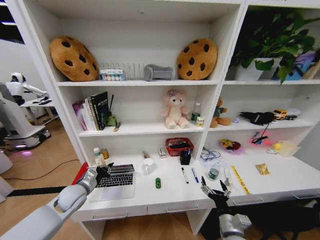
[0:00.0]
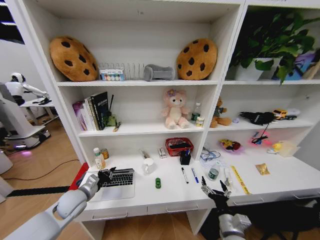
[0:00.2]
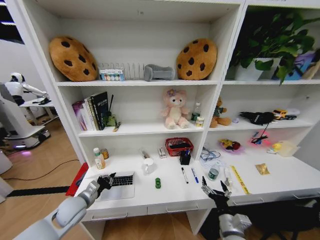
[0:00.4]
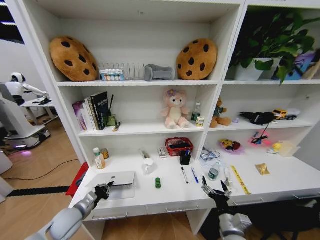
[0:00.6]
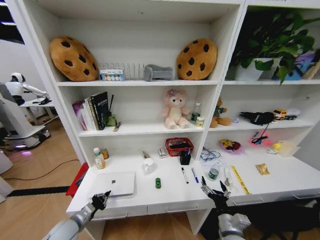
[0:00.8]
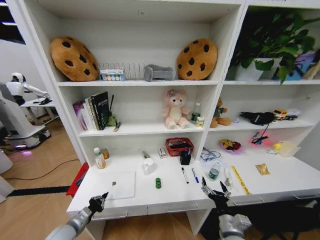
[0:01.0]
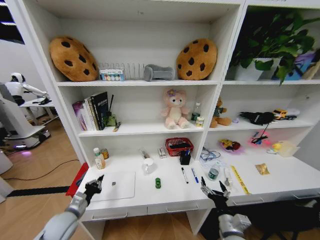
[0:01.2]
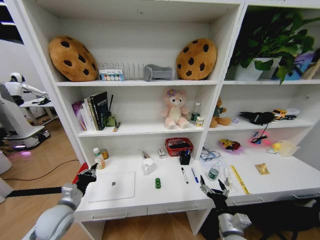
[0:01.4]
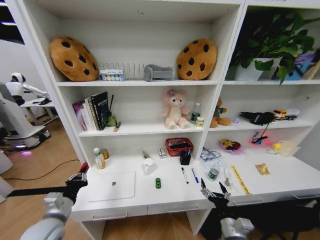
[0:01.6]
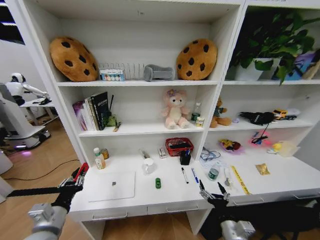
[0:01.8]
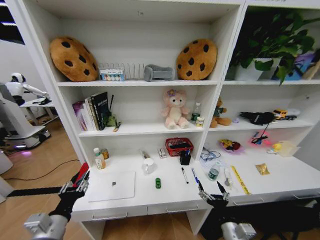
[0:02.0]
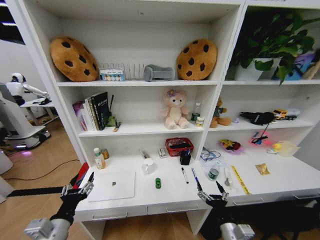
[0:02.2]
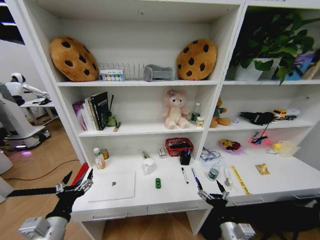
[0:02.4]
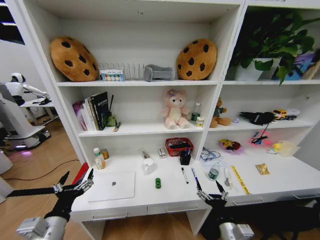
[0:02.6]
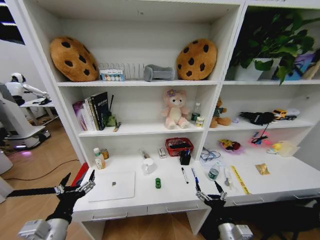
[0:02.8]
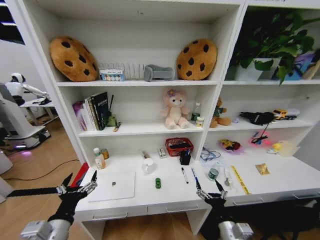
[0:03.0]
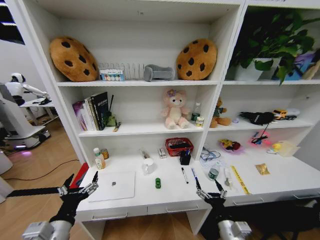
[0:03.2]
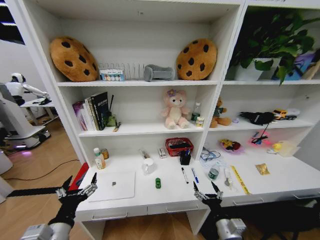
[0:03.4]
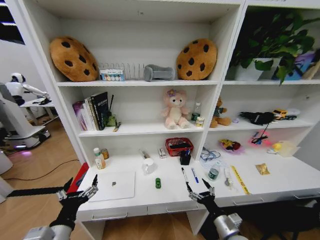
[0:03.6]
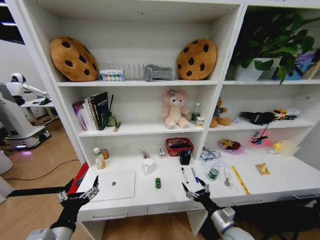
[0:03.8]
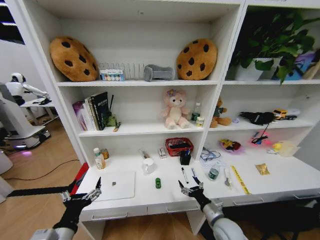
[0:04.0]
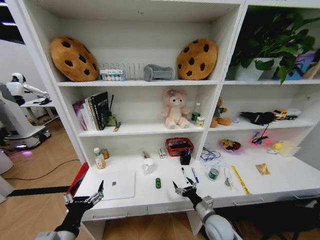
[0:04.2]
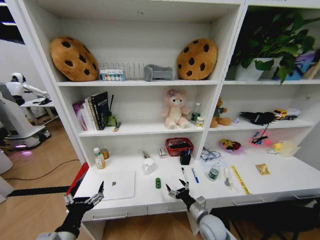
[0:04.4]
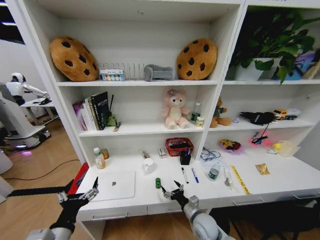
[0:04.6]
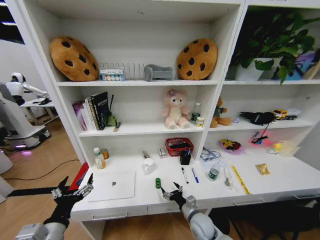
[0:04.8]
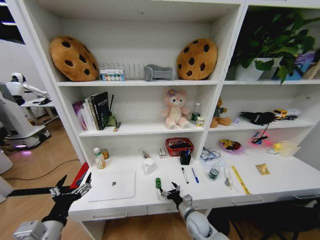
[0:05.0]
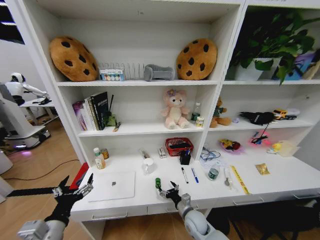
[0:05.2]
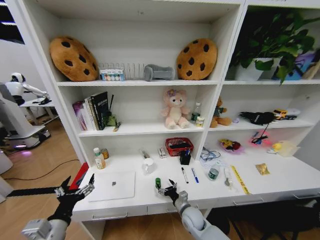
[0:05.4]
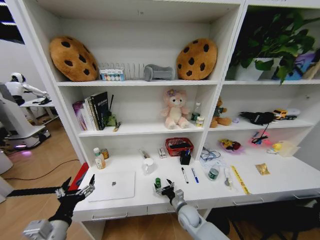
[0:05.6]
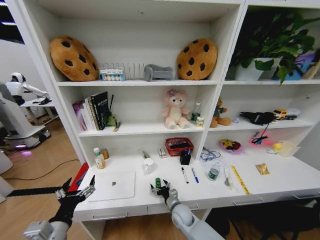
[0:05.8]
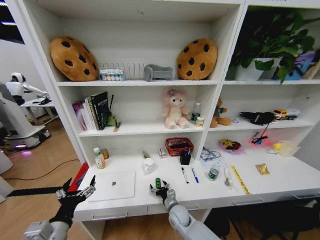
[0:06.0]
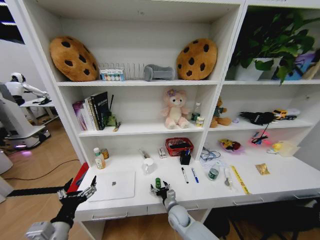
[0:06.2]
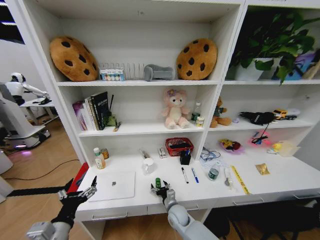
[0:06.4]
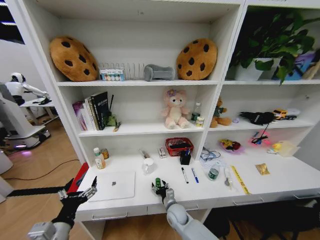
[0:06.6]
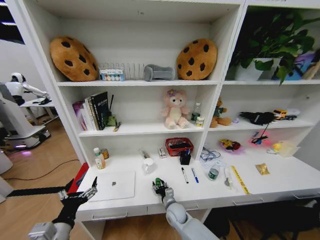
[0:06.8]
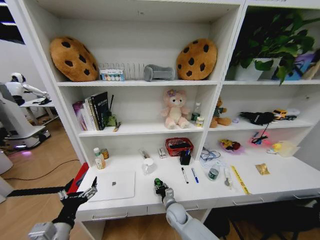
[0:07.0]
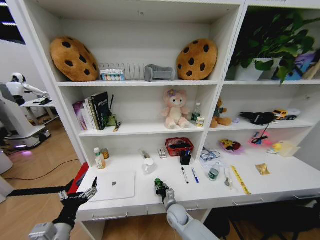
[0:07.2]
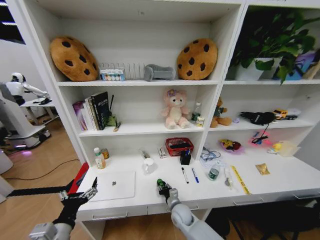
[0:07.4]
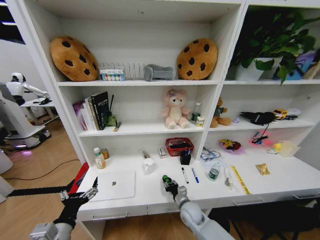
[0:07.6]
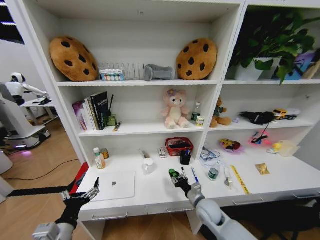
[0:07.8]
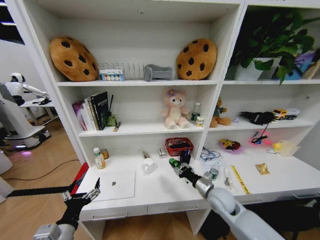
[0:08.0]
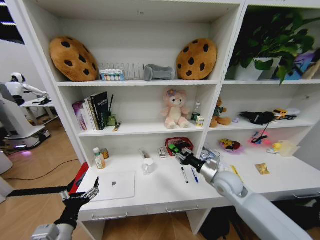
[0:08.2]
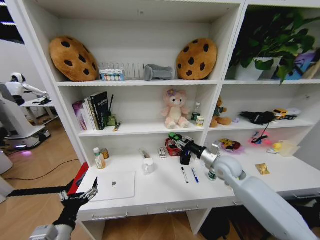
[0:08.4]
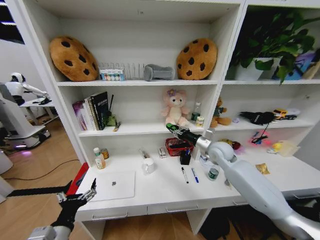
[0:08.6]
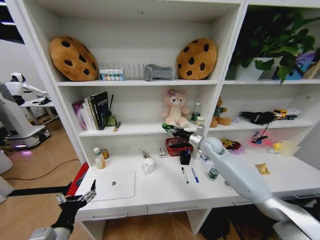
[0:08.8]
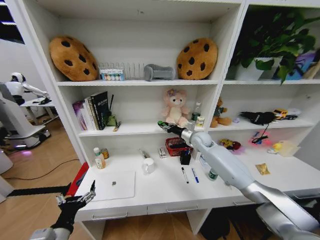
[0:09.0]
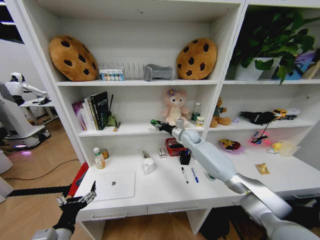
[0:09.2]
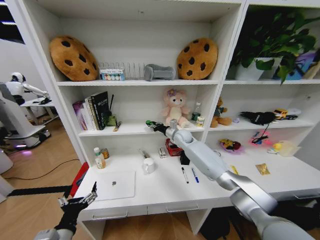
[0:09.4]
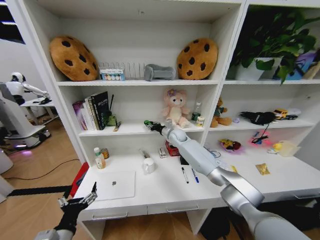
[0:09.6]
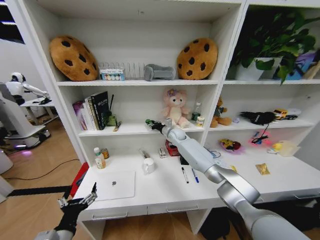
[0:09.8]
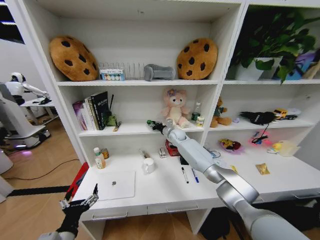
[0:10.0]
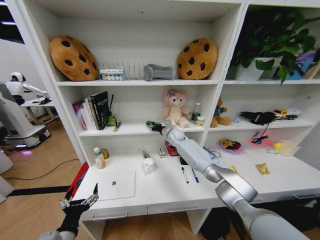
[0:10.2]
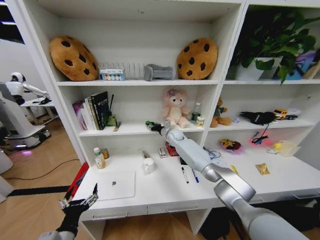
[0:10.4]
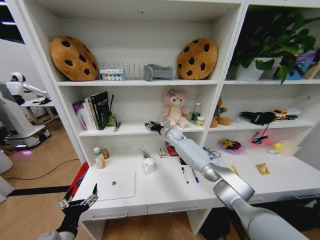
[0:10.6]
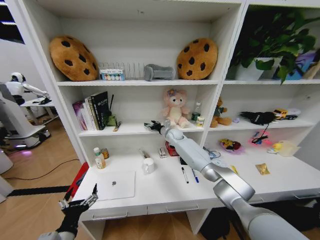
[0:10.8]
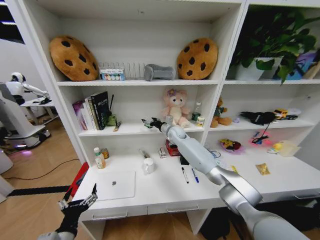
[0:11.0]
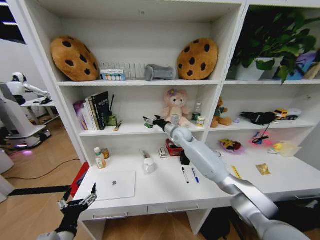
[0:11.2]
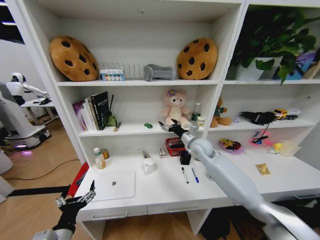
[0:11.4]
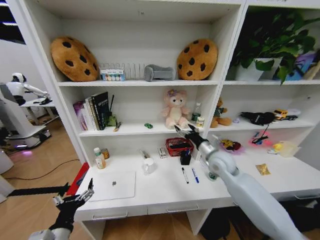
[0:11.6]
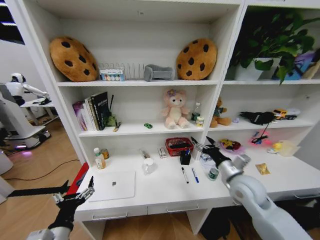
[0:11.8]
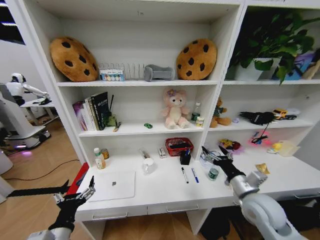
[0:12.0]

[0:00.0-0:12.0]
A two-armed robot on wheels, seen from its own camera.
Task of the whole recording: Organize the objects on the table.
0:00.0 to 0:01.6: The left gripper is displaced backward by roughly 15 cm.
0:01.6 to 0:03.0: The left gripper shifts approximately 10 cm backward and to the right, and opens.
0:03.0 to 0:04.4: The right gripper travels forward and downward by some 10 cm.
0:04.4 to 0:06.0: The right gripper shifts about 15 cm to the left, forward and downward.
0:06.0 to 0:07.6: The right gripper heads to the right, covering approximately 5 cm, and closes its fingers.
0:07.6 to 0:09.0: The right gripper is displaced forward and upward by about 35 cm.
0:09.0 to 0:10.4: The right gripper goes about 15 cm to the left and forward.
0:10.4 to 0:12.0: The right gripper is displaced backward and to the right by about 40 cm, and opens.

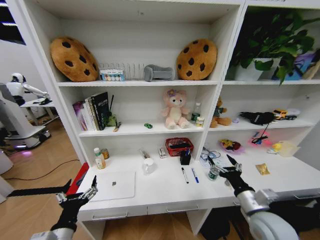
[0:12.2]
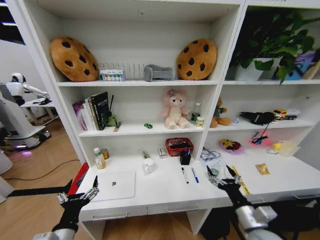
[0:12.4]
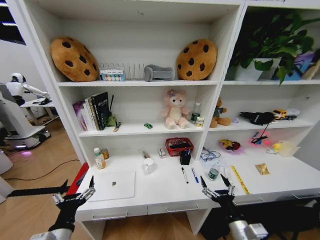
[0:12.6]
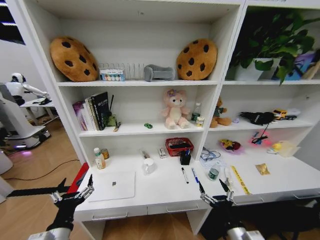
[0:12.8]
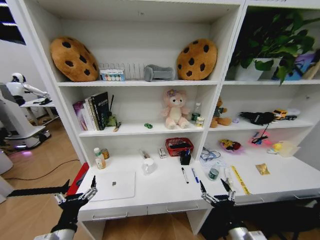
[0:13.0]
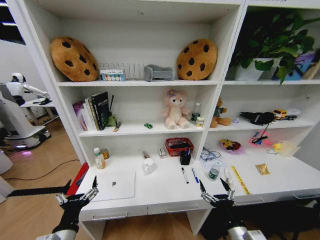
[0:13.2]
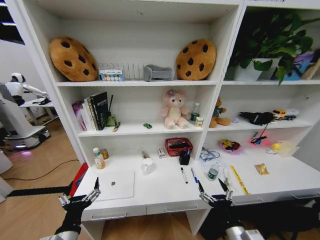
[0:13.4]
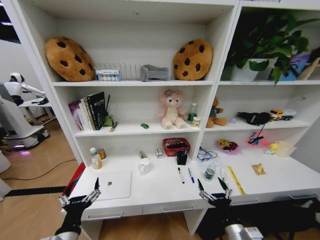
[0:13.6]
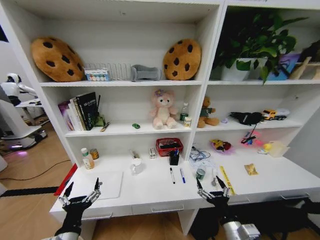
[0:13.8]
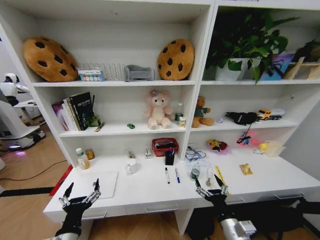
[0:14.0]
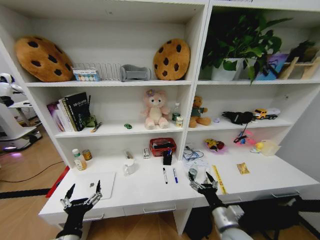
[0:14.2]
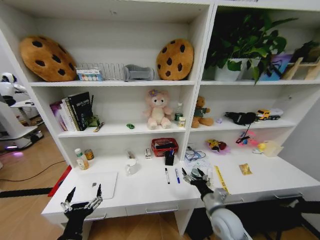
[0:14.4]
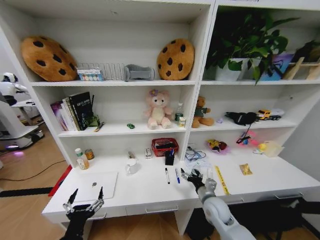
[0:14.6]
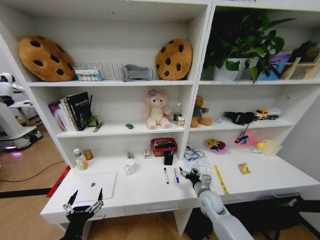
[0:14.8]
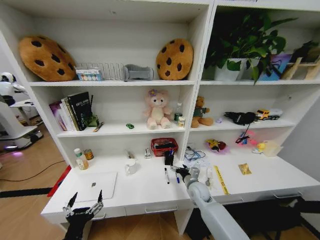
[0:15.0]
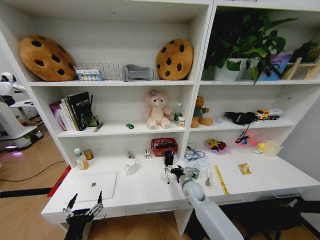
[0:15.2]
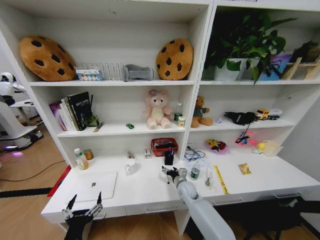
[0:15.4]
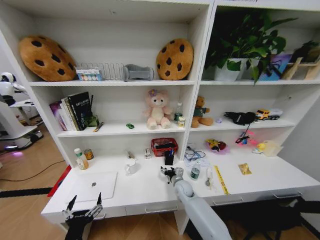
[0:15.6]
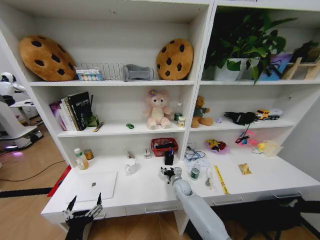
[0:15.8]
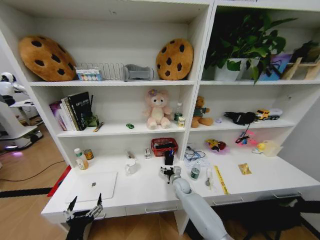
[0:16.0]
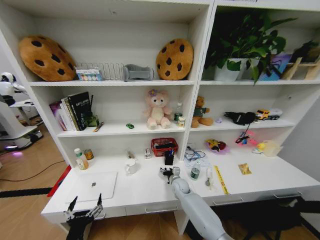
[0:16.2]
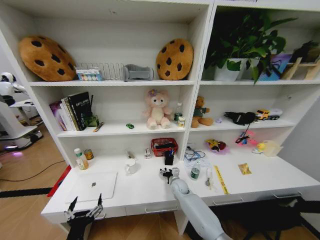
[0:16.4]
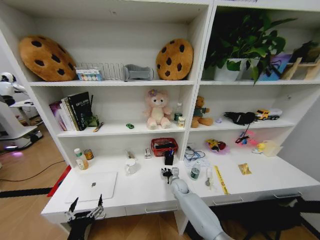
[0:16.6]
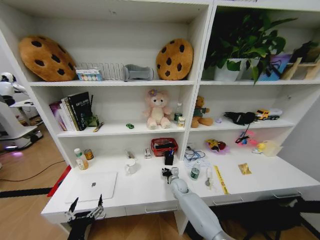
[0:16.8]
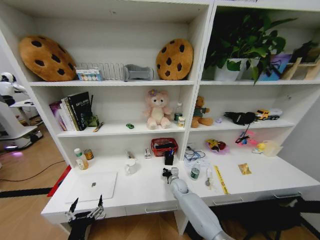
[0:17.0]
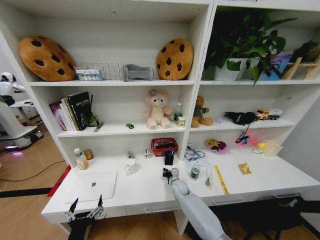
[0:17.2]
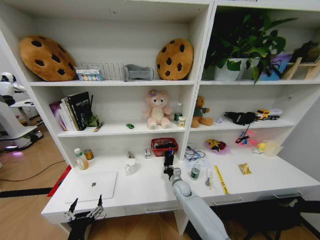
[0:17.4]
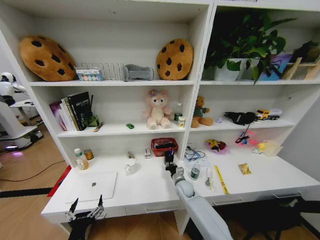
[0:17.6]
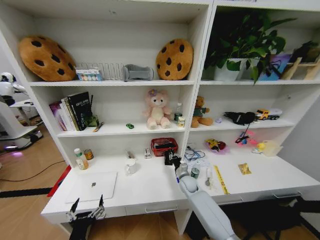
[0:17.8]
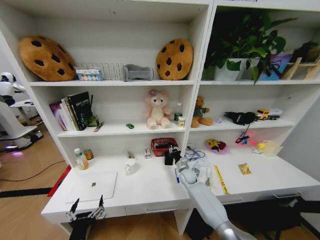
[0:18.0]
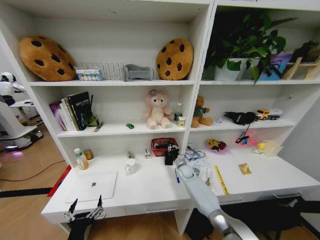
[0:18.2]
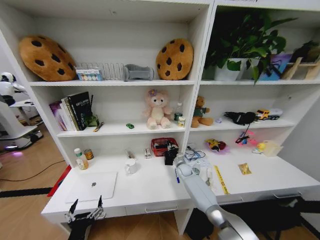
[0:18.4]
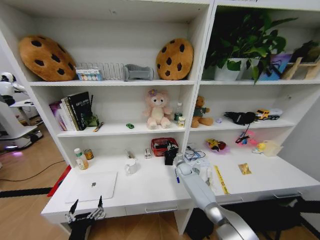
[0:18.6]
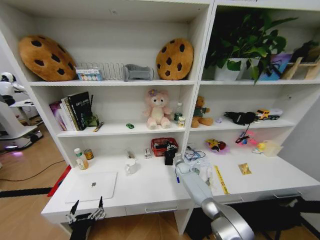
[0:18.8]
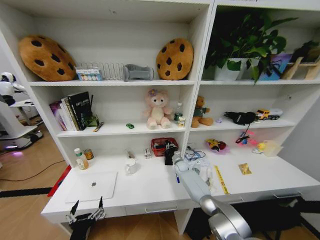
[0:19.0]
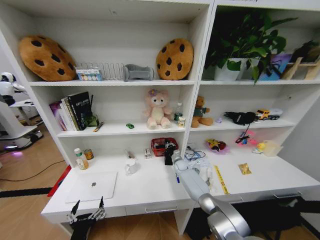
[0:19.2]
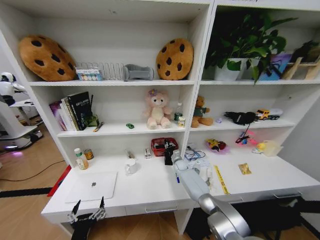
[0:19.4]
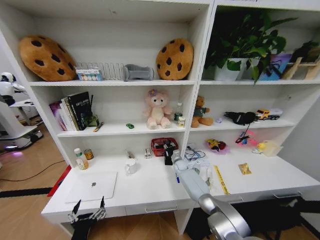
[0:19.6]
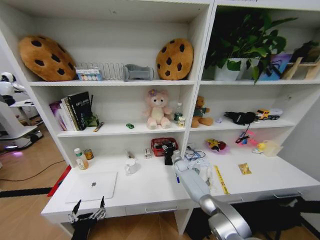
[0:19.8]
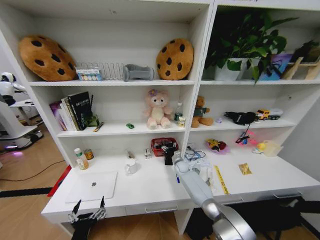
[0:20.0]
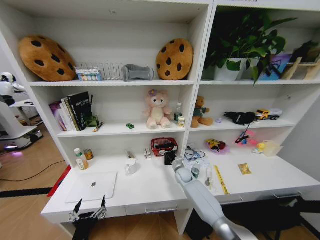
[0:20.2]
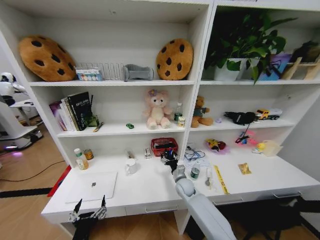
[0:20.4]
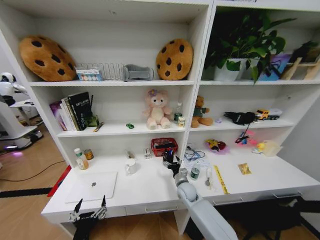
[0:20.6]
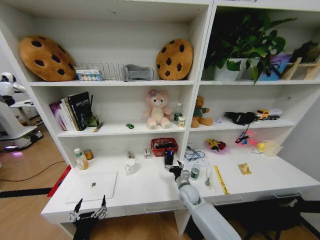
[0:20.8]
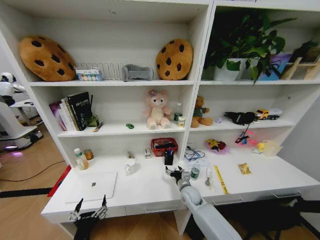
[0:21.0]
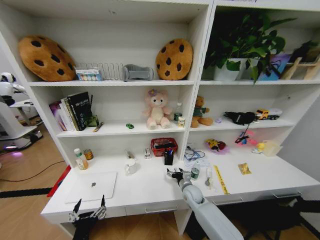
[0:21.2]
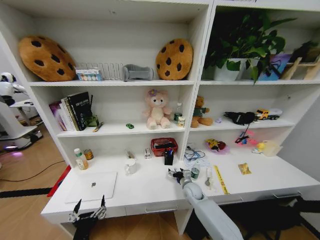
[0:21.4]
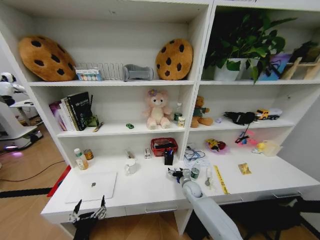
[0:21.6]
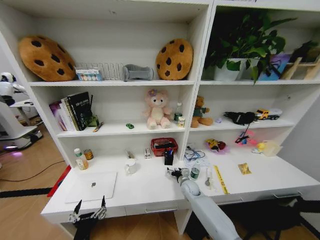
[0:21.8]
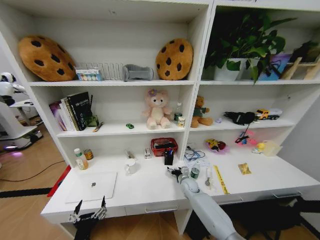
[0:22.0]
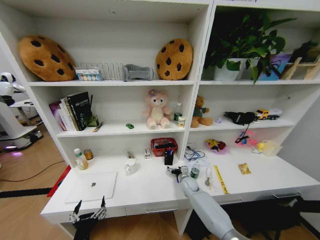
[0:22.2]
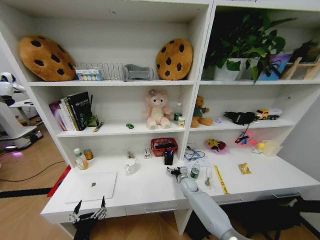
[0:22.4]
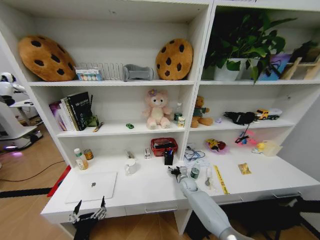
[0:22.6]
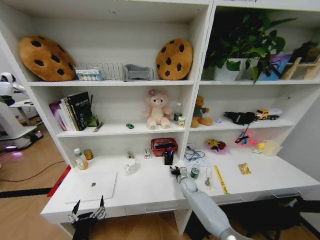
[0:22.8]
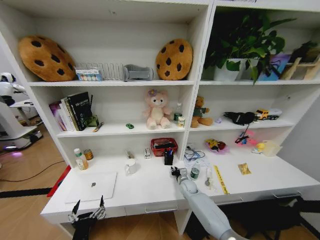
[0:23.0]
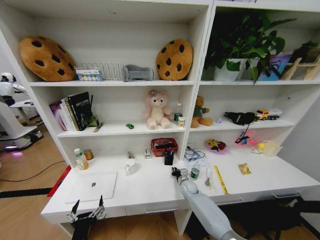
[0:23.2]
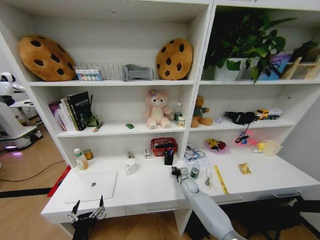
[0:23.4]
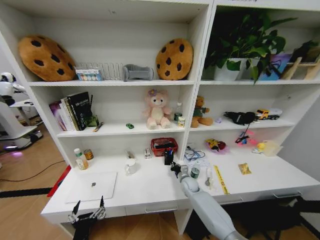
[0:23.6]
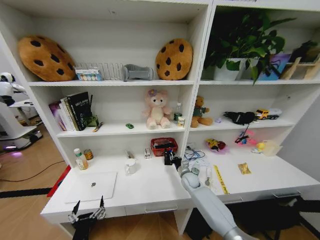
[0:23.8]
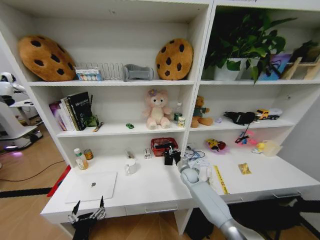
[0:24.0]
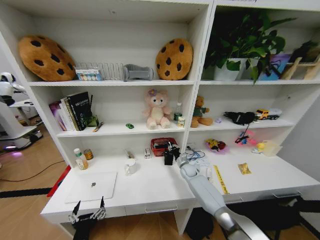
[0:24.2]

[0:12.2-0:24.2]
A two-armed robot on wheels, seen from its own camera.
Task of the whole recording: Organize the objects on the table.
0:12.2 to 0:13.8: The right gripper travels downward, backward and to the left by approximately 15 cm.
0:13.8 to 0:15.2: The right gripper travels forward by approximately 25 cm.
0:15.2 to 0:16.6: The right gripper travels downward, forward and to the left by approximately 10 cm, and closes up.
0:16.6 to 0:18.2: The right gripper moves forward and to the right, some 10 cm, and closes up.
0:18.2 to 0:19.8: The right gripper goes approximately 5 cm forward, and opens its fingers.
0:19.8 to 0:21.2: The right gripper is displaced backward by roughly 20 cm.
0:21.2 to 0:22.6: The right gripper goes approximately 5 cm forward.
0:22.6 to 0:24.2: The right gripper shifts about 5 cm forward, and closes its fingers.
